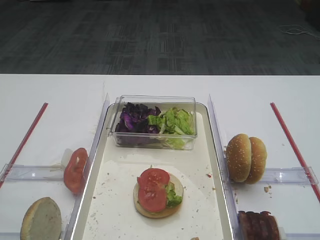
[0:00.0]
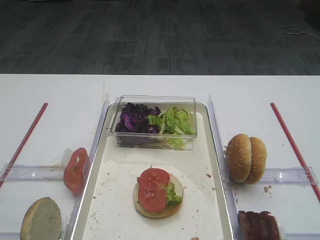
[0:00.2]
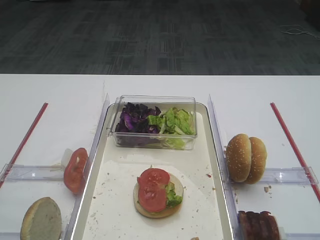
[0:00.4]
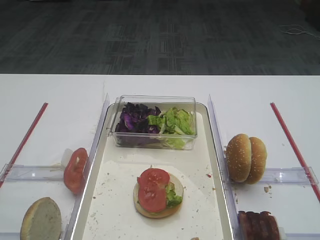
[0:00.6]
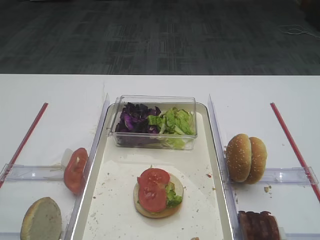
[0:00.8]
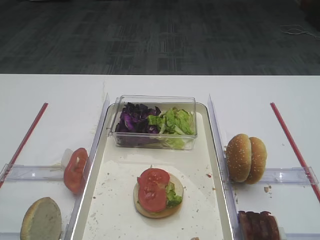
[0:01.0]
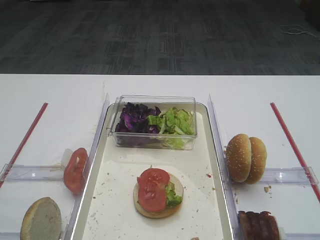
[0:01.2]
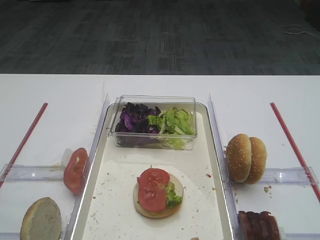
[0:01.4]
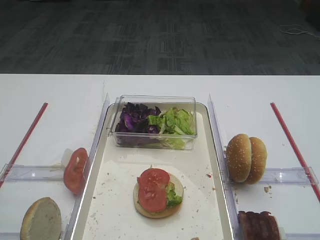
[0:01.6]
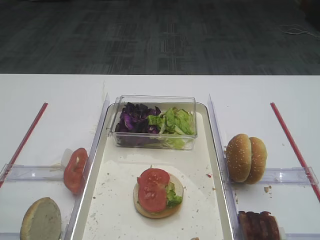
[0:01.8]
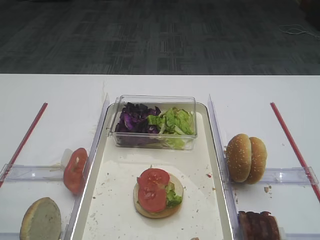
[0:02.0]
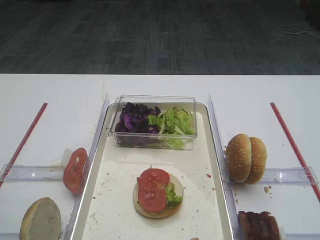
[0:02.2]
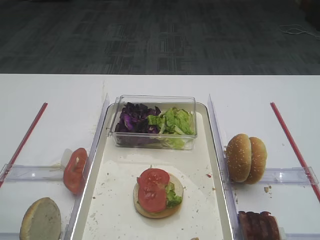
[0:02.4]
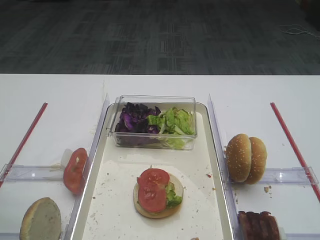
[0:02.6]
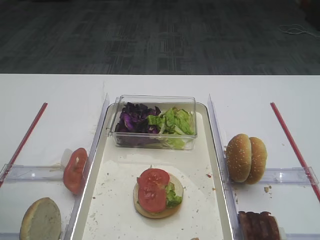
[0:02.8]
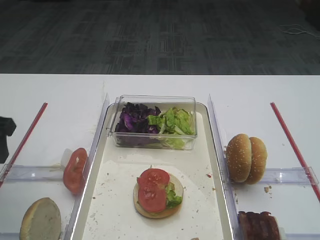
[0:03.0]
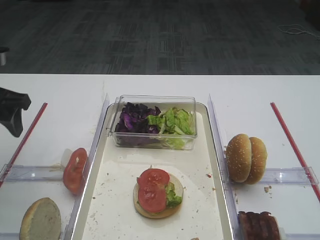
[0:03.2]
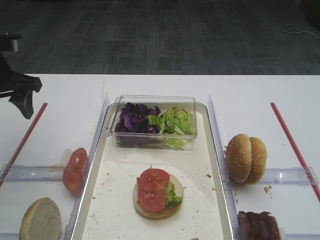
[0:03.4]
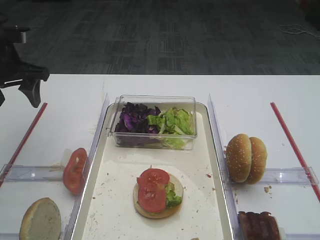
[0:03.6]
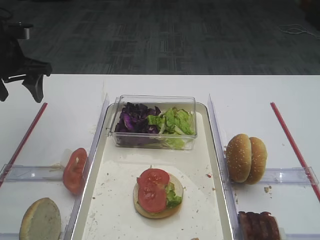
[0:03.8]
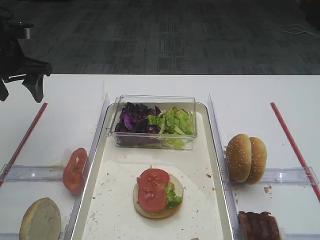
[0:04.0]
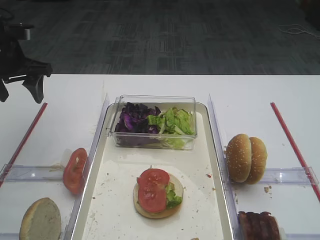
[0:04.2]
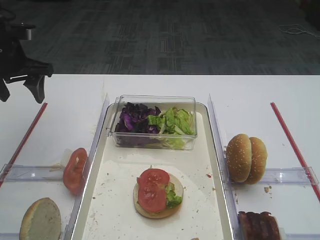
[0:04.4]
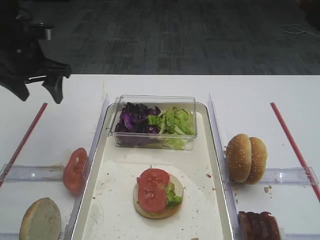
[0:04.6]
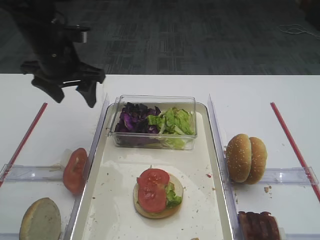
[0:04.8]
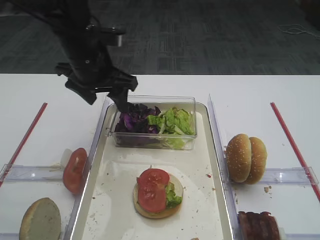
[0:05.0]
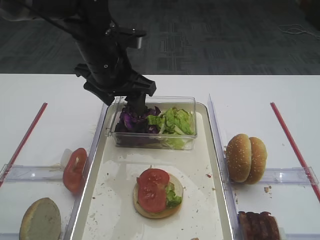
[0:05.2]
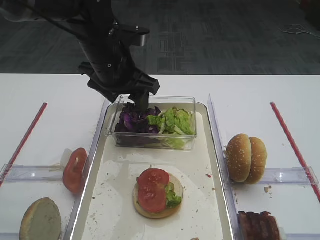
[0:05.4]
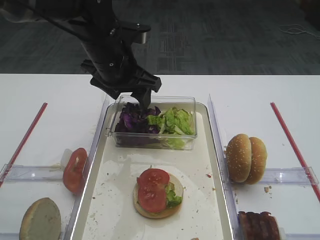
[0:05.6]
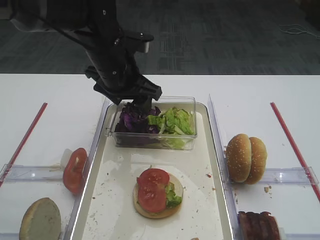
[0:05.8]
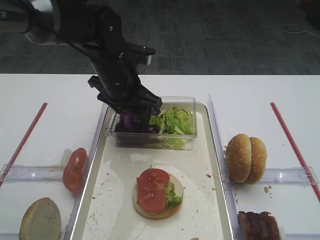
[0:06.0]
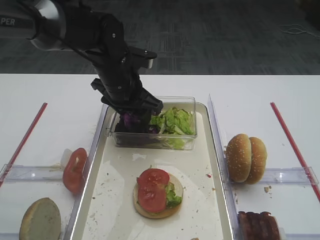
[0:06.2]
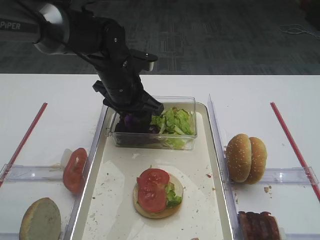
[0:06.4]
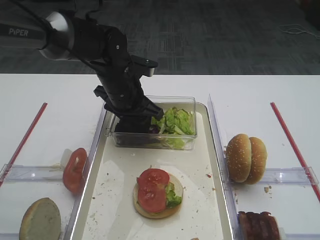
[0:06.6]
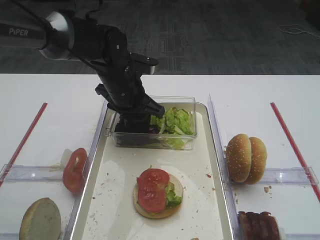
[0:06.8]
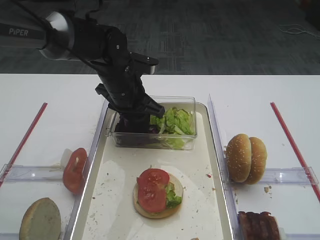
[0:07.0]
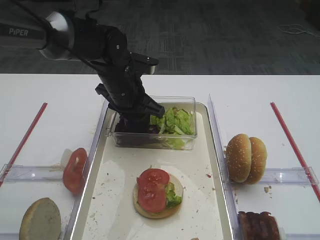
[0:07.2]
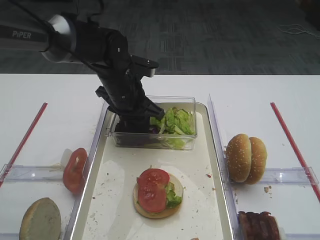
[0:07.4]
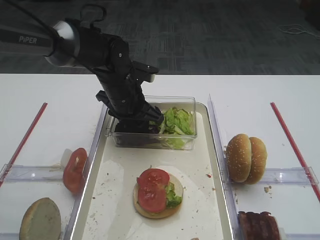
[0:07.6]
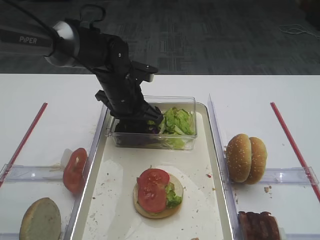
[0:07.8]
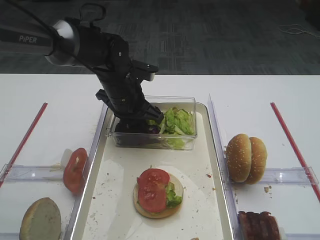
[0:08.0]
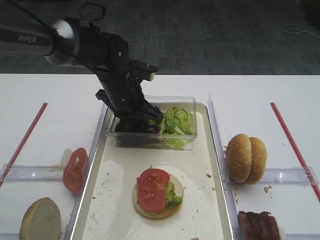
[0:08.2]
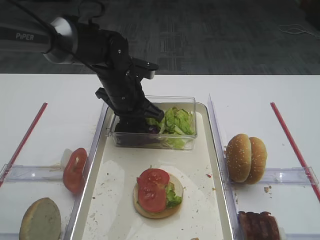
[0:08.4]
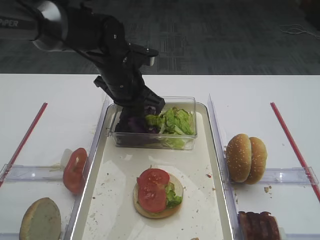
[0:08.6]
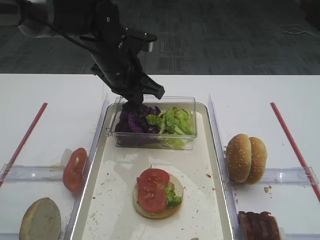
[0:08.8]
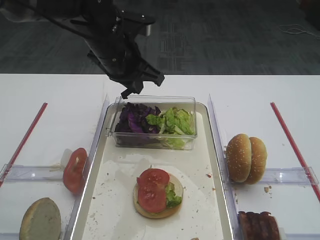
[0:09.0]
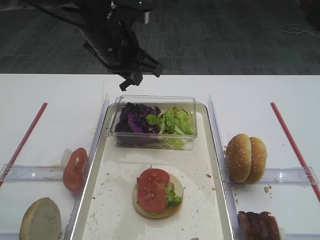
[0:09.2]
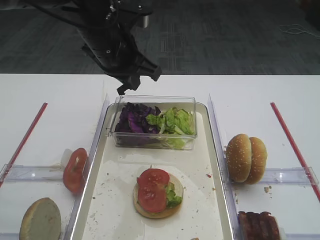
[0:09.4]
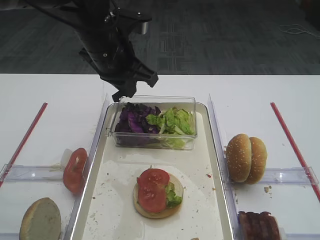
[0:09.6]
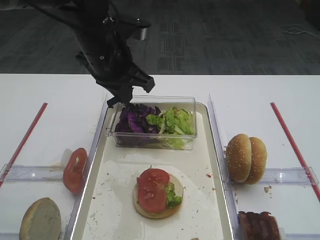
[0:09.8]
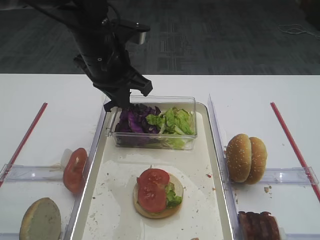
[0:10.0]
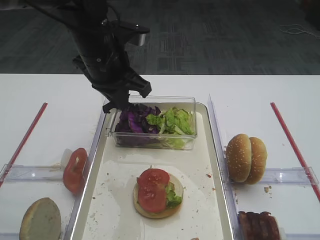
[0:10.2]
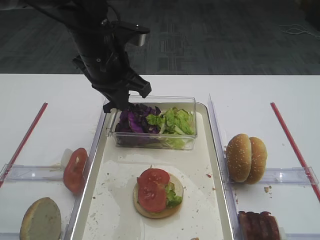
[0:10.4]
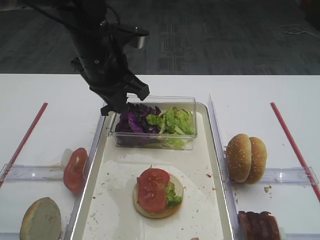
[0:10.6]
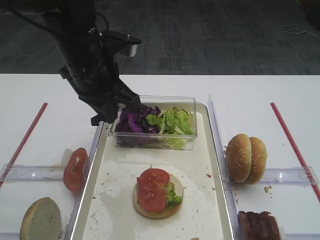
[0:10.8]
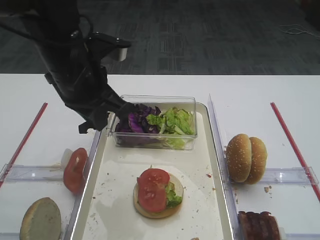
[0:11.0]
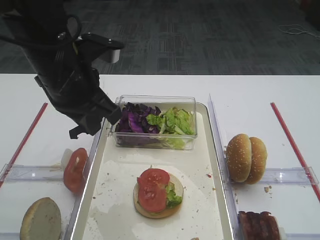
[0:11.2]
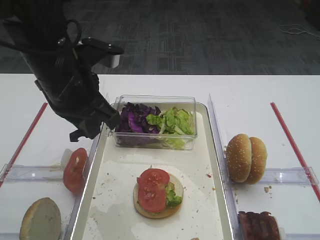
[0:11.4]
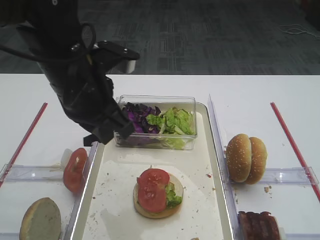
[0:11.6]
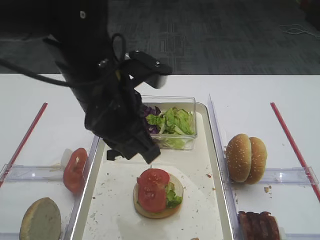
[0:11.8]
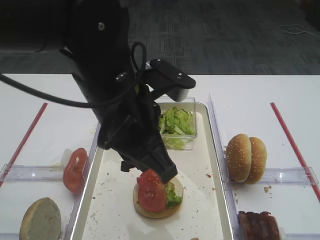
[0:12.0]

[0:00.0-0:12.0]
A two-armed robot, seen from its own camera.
Step, 0:00.0 to 0:10.2: Pick up the purple cabbage with the left gripper.
0:01.6 to 0:03.0: The left gripper goes some 15 cm forward.
0:03.0 to 0:04.4: The left gripper heads forward, covering approximately 15 cm.
0:04.4 to 0:06.0: The left gripper heads to the right, covering some 20 cm.
0:06.0 to 0:07.6: The left gripper moves downward, about 5 cm.
0:07.6 to 0:09.0: The left gripper travels upward by approximately 10 cm, and closes its fingers.
0:09.0 to 0:10.4: There are only small adjustments of the grippers.
0:10.4 to 0:12.0: The left gripper goes approximately 10 cm backward.

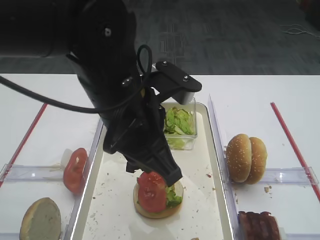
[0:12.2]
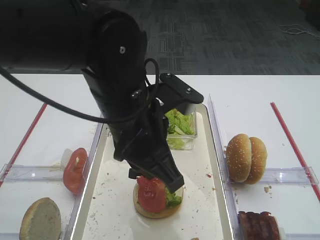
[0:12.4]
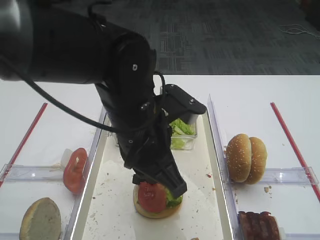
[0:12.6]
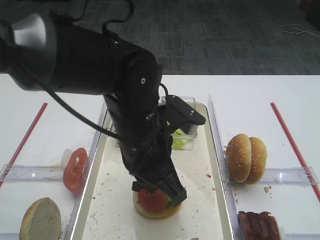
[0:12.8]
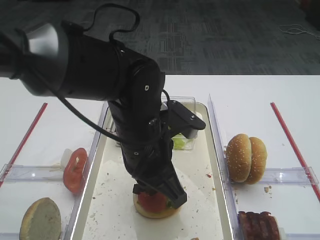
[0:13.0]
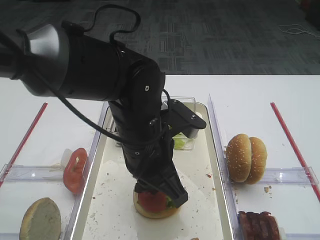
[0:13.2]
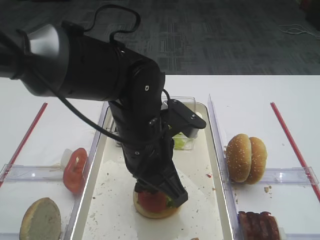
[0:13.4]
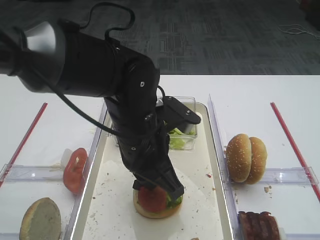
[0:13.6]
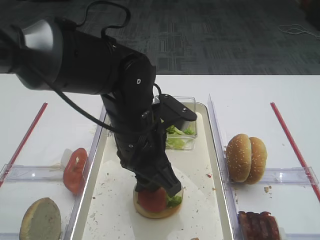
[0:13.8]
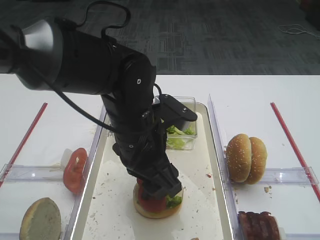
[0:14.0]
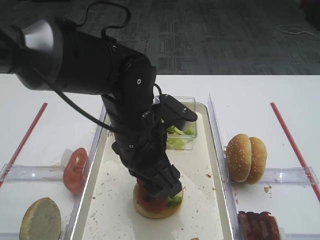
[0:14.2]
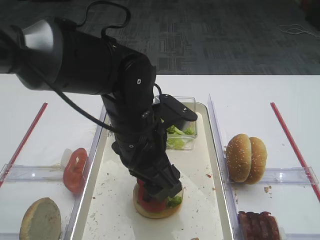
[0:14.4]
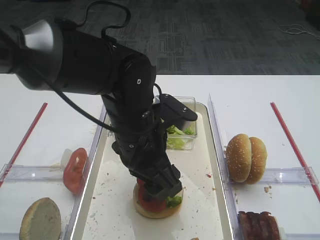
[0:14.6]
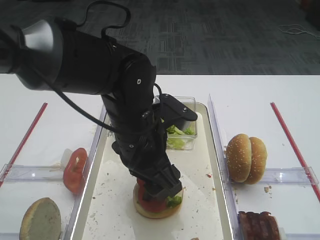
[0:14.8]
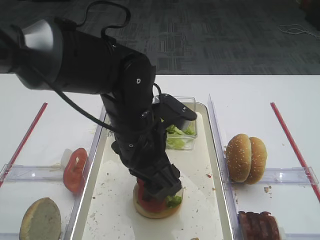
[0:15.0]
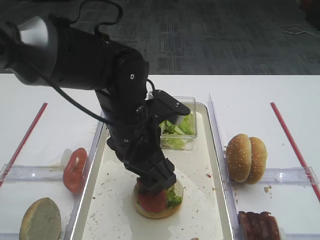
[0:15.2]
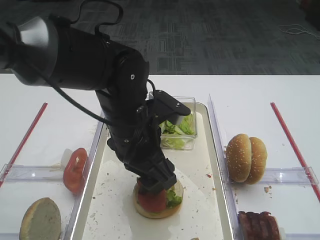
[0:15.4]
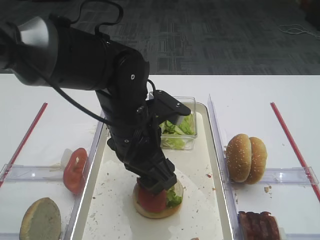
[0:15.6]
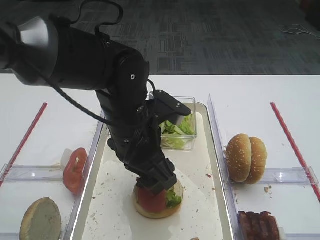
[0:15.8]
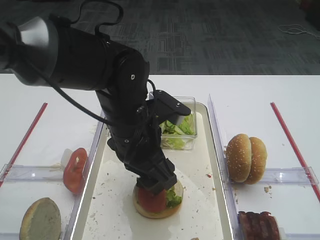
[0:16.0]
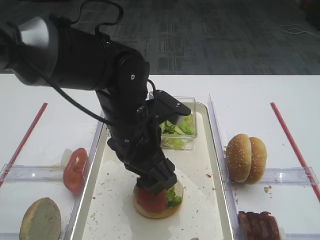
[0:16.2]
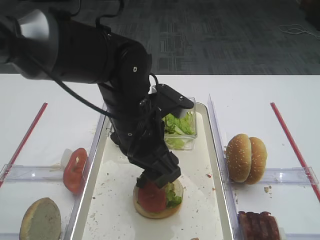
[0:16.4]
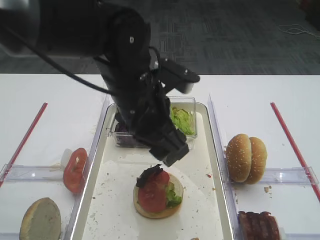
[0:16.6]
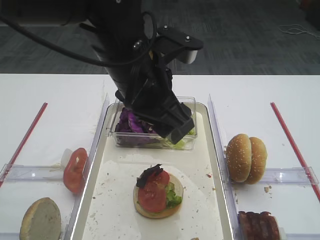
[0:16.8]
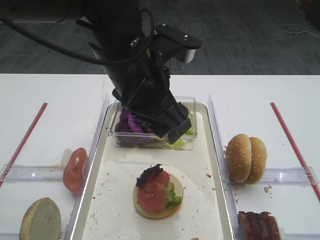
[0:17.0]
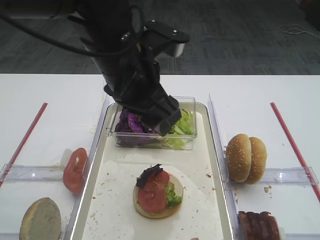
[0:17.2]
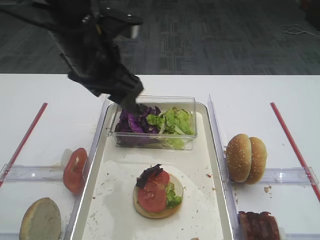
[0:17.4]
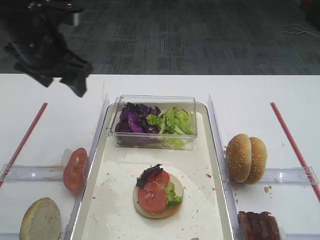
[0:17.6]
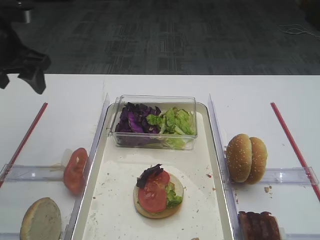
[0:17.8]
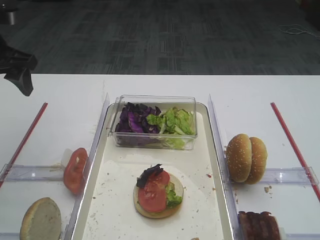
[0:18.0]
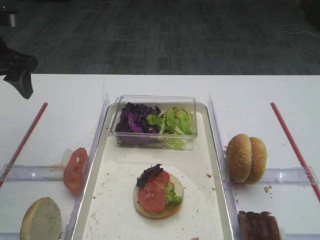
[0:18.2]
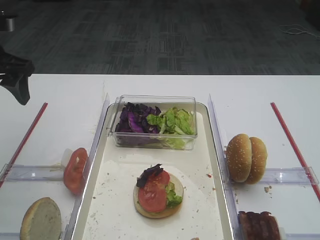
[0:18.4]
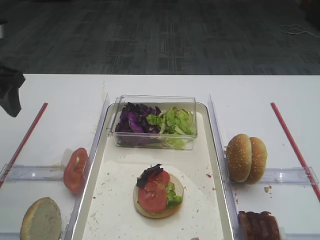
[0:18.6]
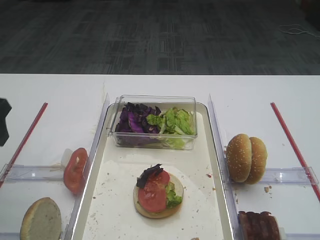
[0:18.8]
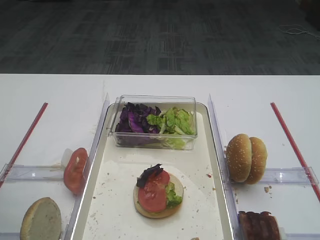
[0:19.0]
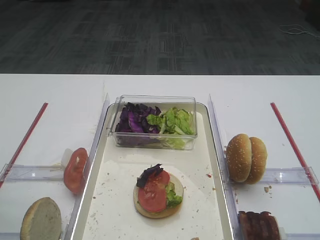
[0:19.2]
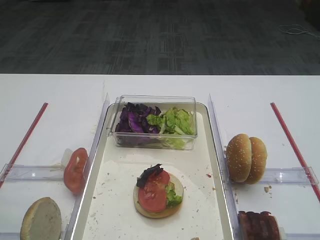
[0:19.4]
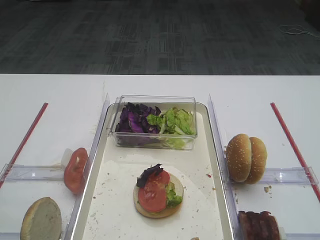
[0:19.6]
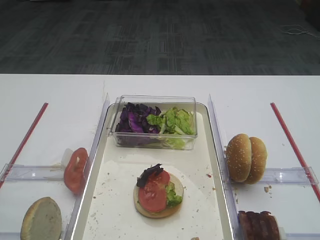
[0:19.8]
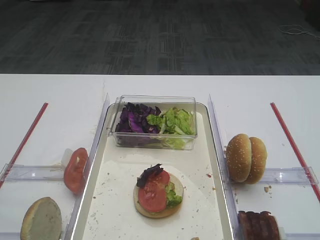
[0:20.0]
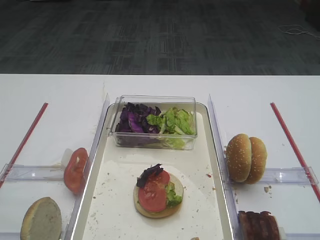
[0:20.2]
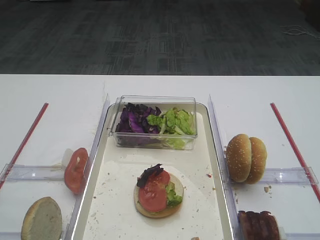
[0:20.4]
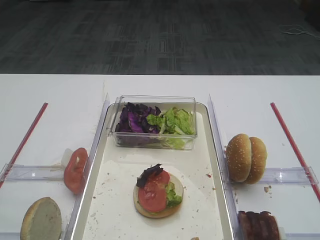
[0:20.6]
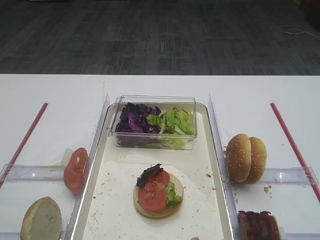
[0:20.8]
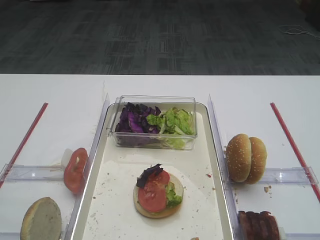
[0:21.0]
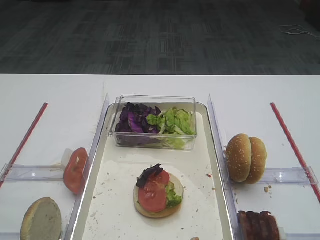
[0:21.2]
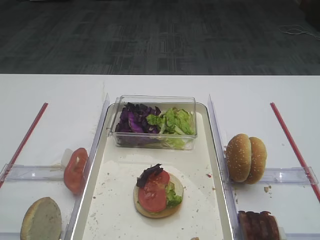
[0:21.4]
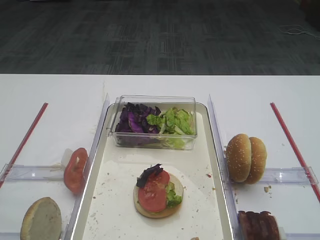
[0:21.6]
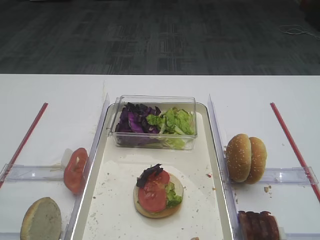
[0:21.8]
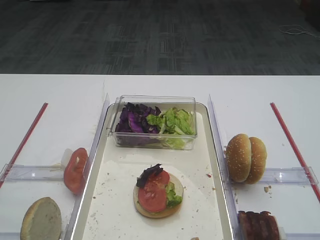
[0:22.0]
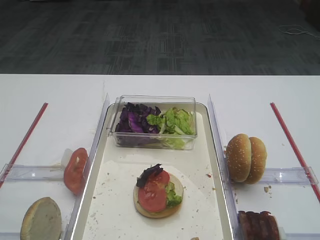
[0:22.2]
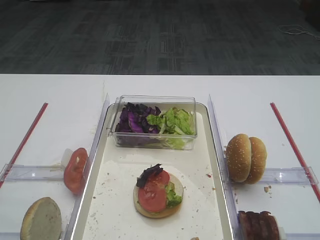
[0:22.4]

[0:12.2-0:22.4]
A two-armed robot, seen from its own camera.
Step, 0:12.2 to 0:16.0: Place the purple cabbage on the tomato slice with the left gripper.
0:12.2 to 0:13.6: The left gripper is displaced downward by some 5 cm.
0:13.6 to 0:15.2: The left gripper opens.
0:15.2 to 0:16.6: The grippers move only a little.
0:16.6 to 0:18.0: The left gripper is displaced to the left by about 25 cm.
0:18.0 to 0:19.4: The left gripper heads backward, covering some 25 cm.
0:21.0 to 0:22.4: Neither gripper changes place.
